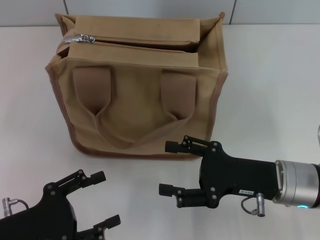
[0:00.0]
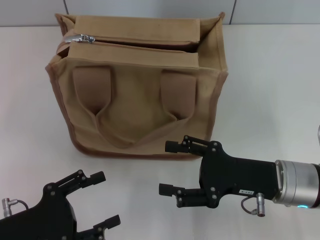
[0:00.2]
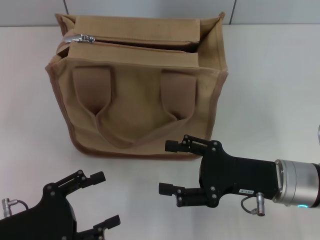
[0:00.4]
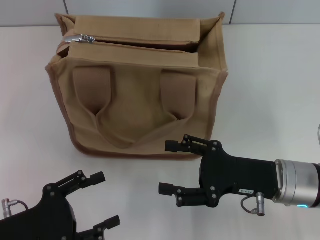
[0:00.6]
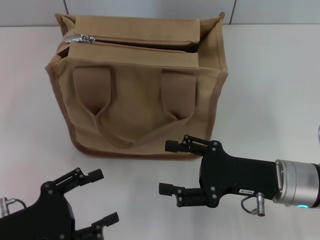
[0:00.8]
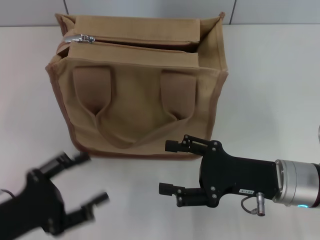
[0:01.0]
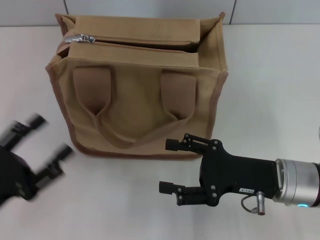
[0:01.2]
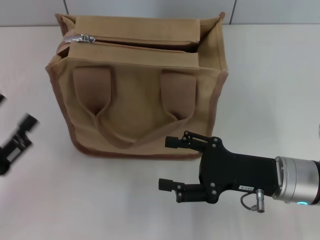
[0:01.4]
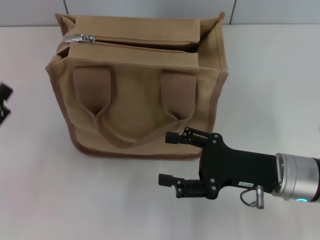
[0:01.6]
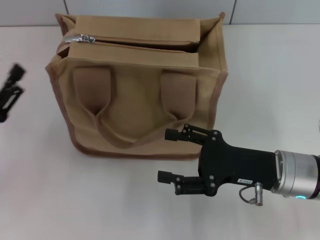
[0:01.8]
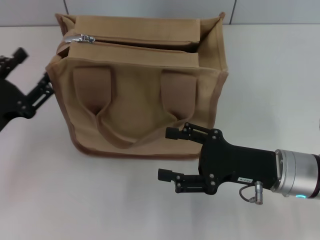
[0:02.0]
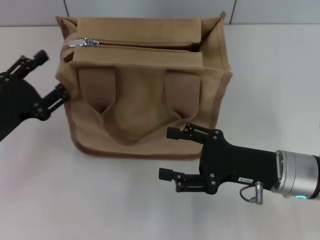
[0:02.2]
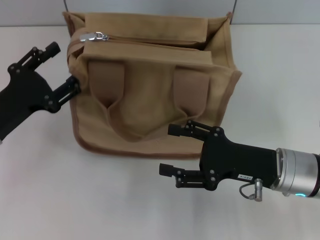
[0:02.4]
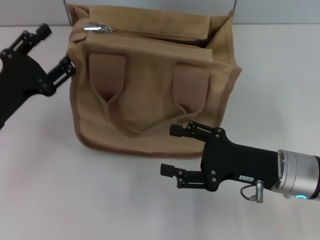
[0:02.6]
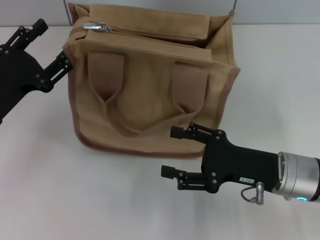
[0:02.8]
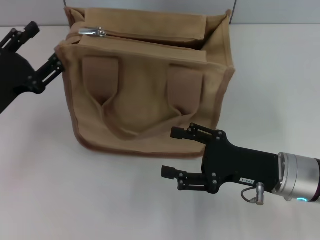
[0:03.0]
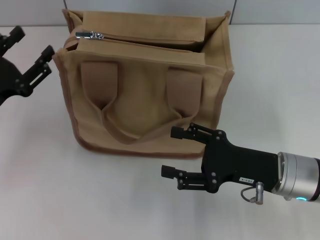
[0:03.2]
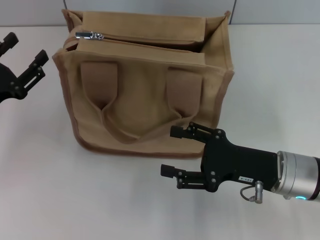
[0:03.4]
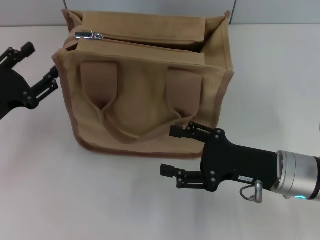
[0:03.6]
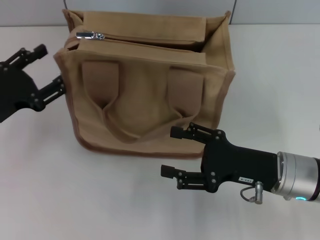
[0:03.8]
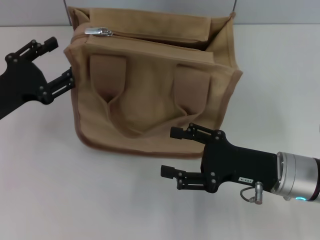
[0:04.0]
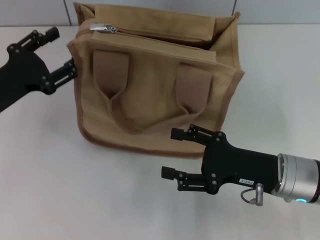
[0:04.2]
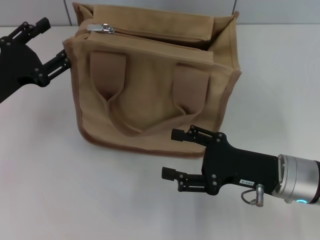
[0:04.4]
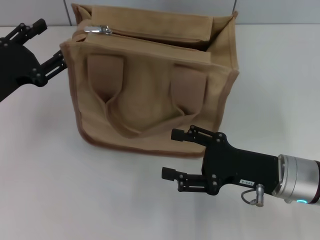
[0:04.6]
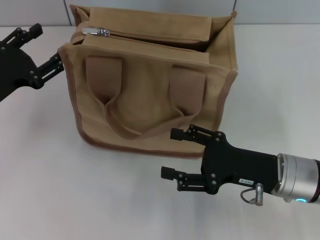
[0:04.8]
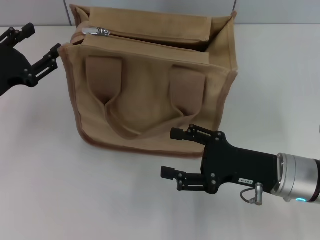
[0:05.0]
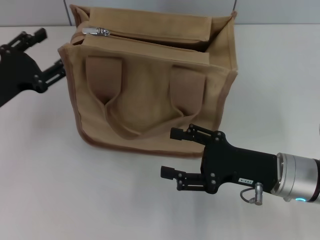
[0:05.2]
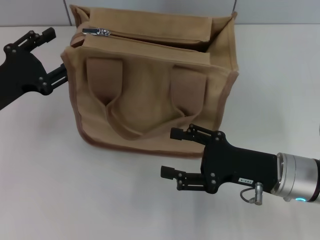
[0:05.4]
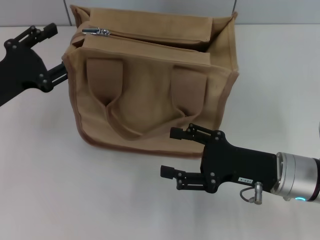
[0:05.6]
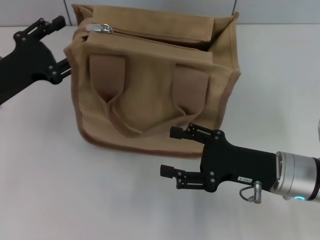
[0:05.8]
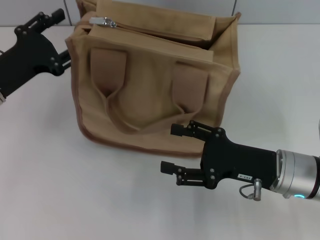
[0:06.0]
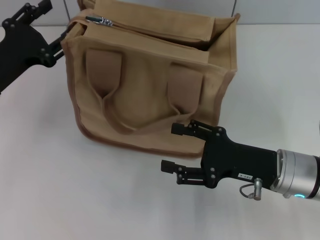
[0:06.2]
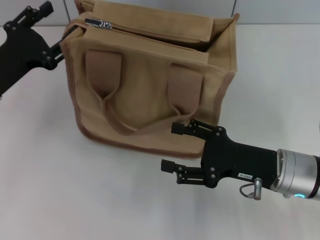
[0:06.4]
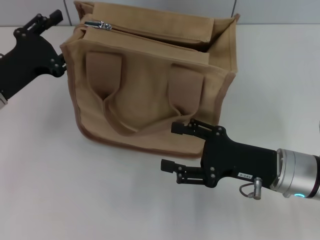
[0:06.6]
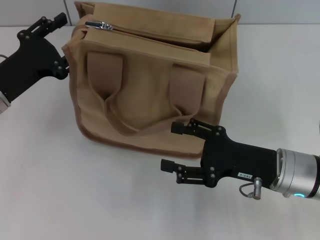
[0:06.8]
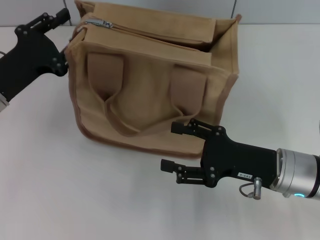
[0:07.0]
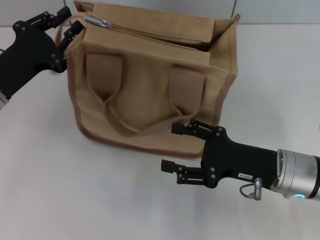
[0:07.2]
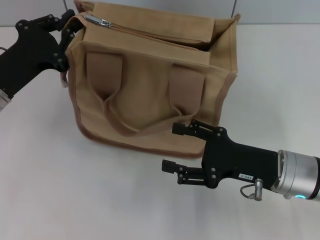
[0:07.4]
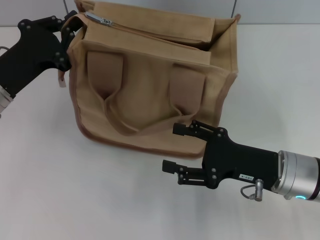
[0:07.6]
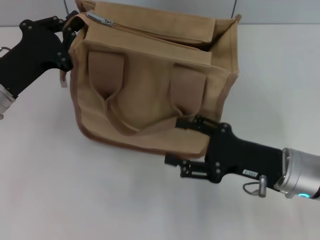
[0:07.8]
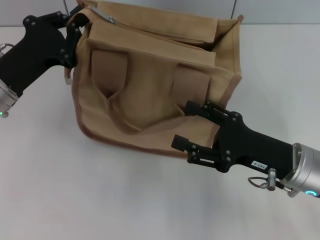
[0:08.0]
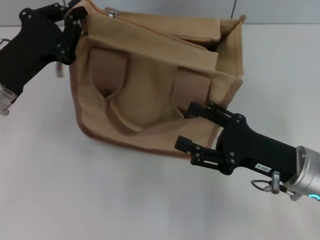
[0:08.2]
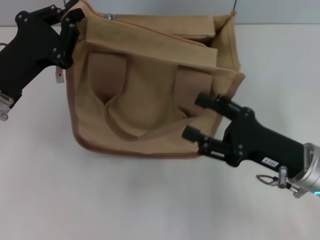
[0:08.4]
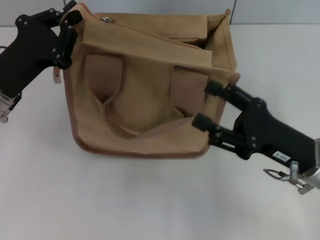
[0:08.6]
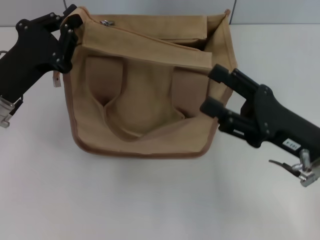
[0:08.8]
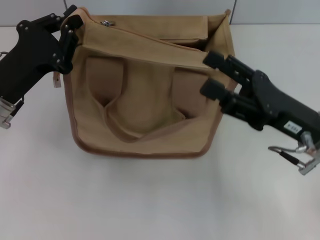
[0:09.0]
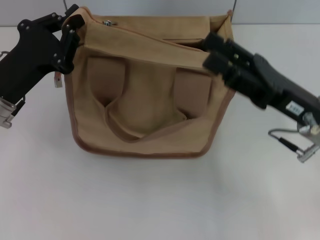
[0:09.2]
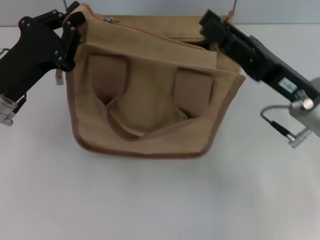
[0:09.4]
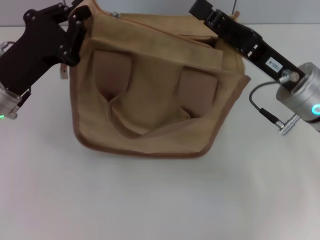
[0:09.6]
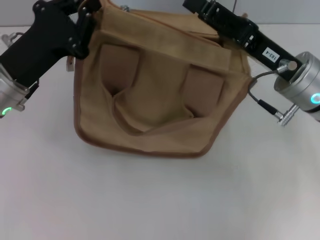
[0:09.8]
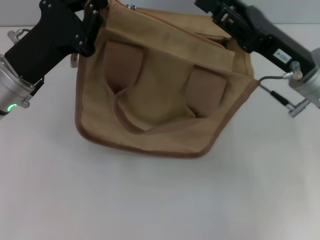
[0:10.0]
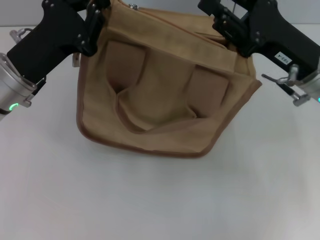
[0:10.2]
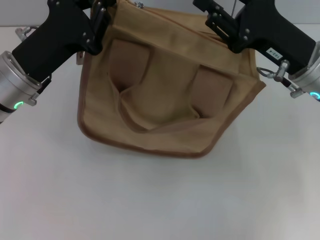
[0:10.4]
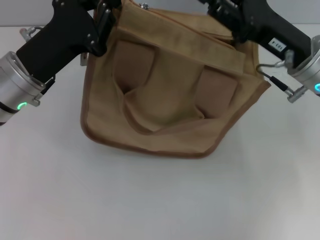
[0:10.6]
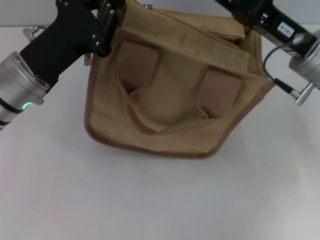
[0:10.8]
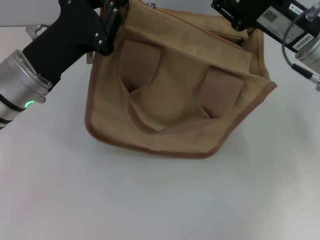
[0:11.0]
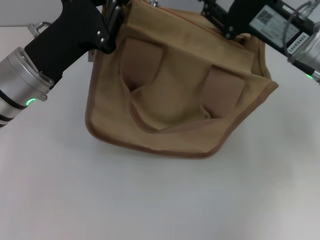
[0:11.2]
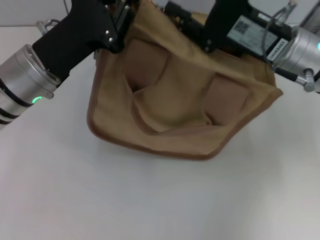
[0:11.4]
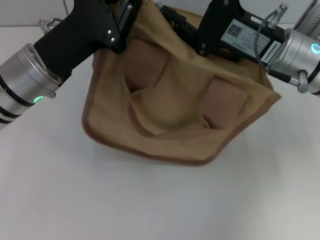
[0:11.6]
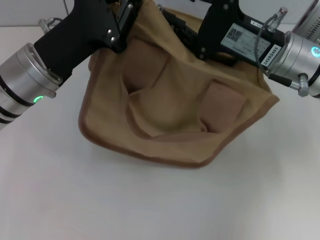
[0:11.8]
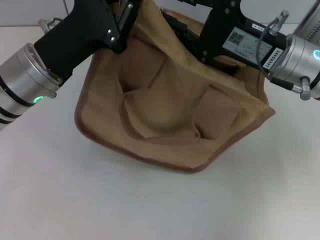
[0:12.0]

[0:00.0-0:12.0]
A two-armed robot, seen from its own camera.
0:00.0 to 0:01.6: The left gripper changes place by roughly 5 cm.
0:01.6 to 0:03.0: The left gripper moves forward, about 10 cm.
0:03.0 to 0:06.0: The grippers make only small movements.
0:06.0 to 0:07.6: The left gripper closes its fingers.
0:07.6 to 0:09.0: The right gripper heads upward, covering approximately 5 cm.
0:09.0 to 0:10.4: The right gripper moves forward, some 5 cm, and closes its fingers.

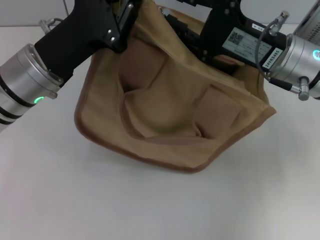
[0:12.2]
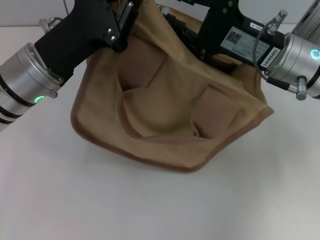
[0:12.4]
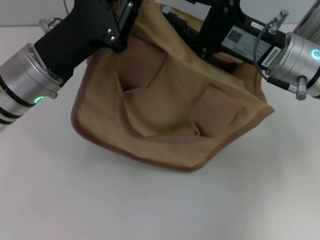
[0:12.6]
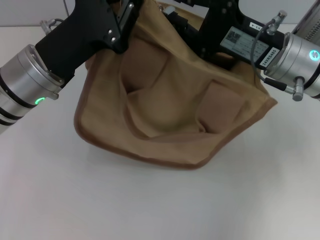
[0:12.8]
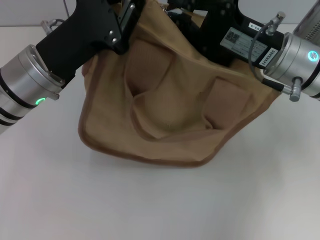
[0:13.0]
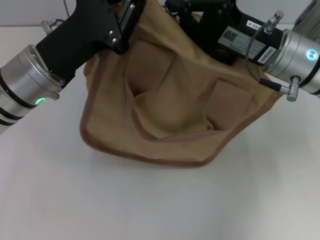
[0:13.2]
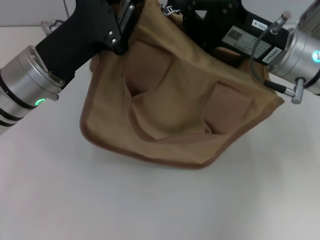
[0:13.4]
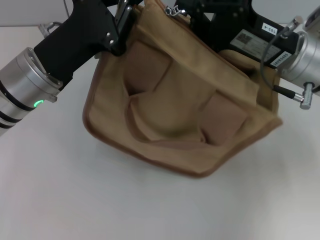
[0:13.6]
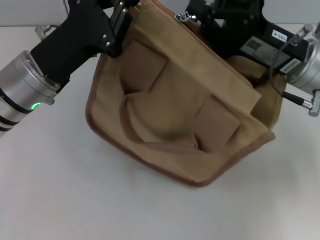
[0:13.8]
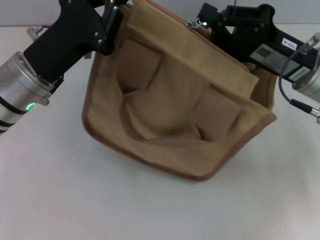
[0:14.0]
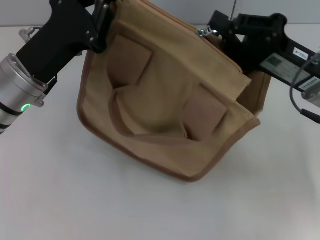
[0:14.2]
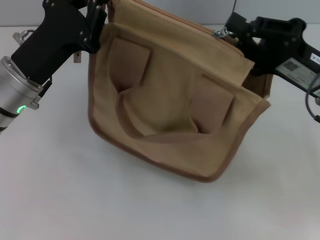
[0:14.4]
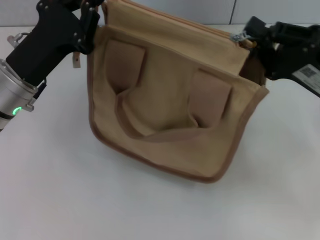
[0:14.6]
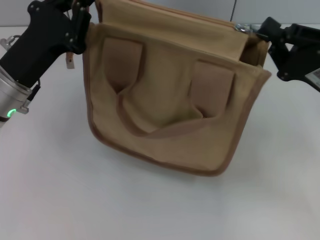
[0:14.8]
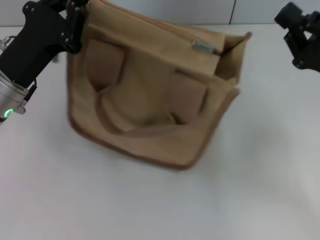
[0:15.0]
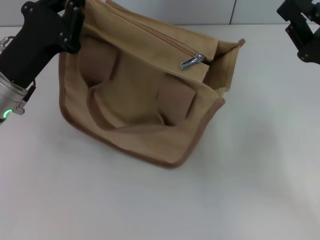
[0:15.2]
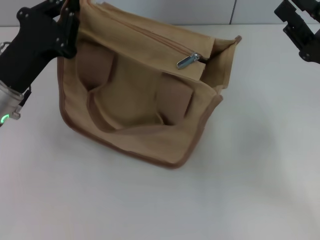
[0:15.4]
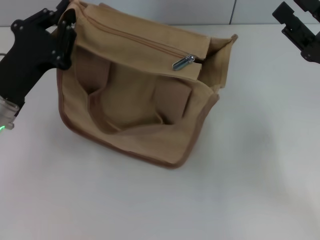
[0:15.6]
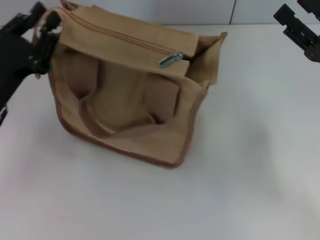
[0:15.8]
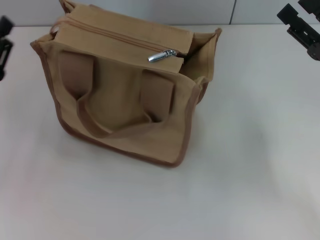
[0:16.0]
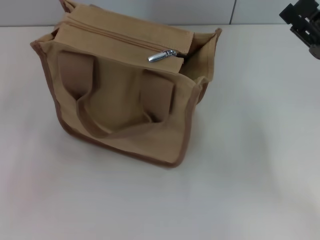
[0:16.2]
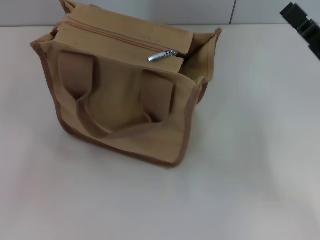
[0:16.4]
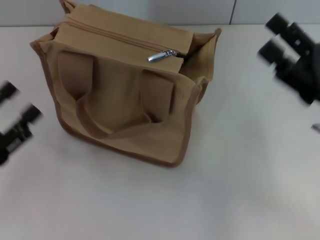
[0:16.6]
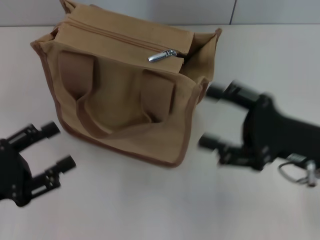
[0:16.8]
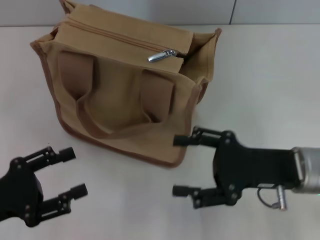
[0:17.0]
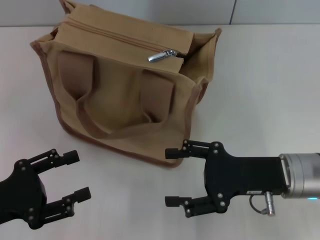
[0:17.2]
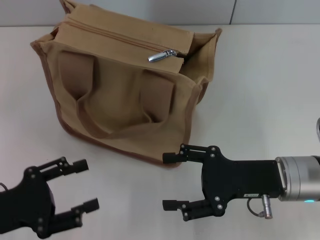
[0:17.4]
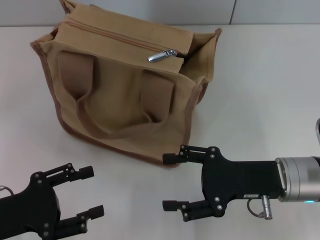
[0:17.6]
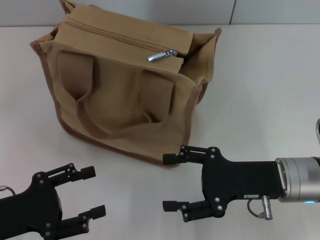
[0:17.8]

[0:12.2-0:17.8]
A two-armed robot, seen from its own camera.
Step, 0:12.2 to 0:15.0: Pull up the zipper with your right hand.
Step, 0:15.2 to 0:16.0: Grab the zipper with your left hand.
0:12.2 to 0:13.6: The right gripper closes its fingers.
0:13.6 to 0:15.0: The right gripper shifts approximately 10 cm to the right and backward.
0:15.0 to 0:16.4: The left gripper is displaced backward and to the left by about 15 cm, and opens, while the right gripper opens.
0:16.4 to 0:17.8: The right gripper shifts some 10 cm to the left and downward.

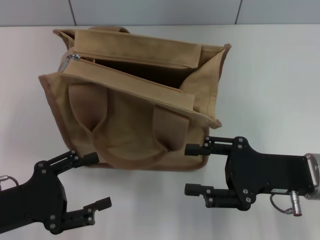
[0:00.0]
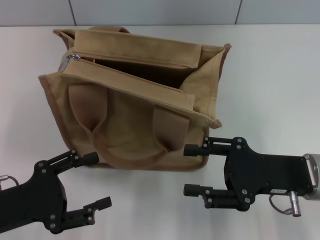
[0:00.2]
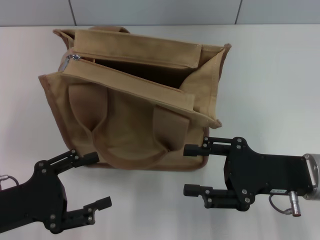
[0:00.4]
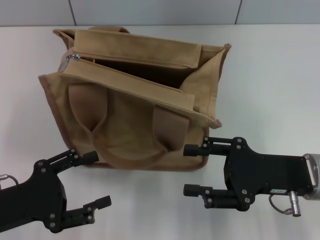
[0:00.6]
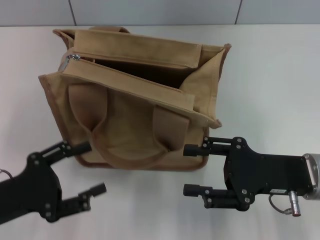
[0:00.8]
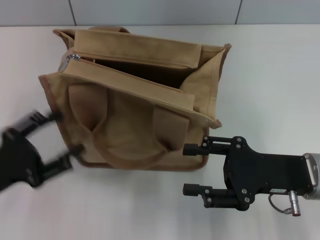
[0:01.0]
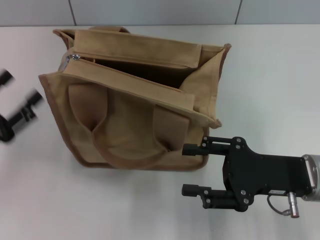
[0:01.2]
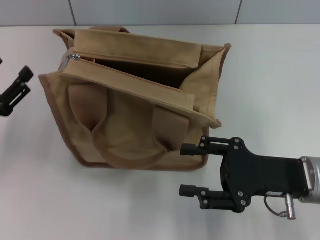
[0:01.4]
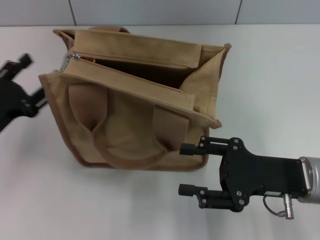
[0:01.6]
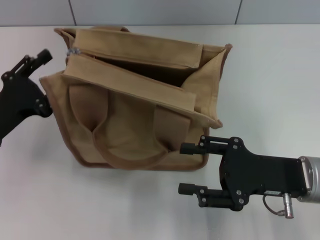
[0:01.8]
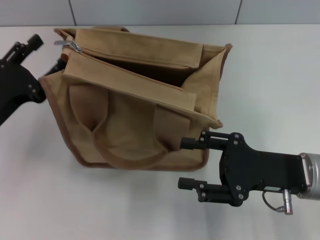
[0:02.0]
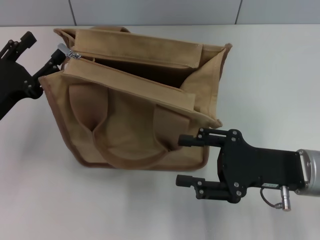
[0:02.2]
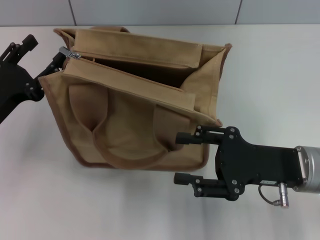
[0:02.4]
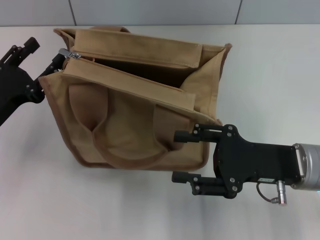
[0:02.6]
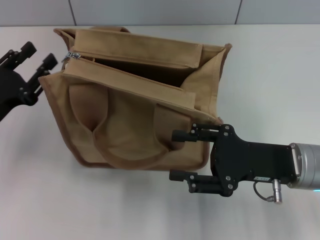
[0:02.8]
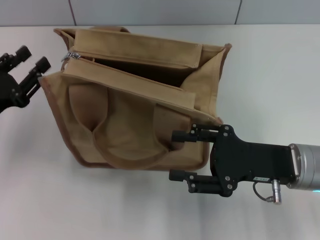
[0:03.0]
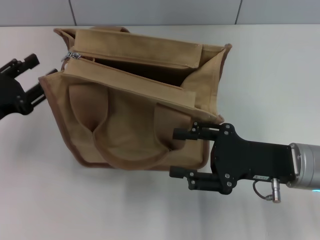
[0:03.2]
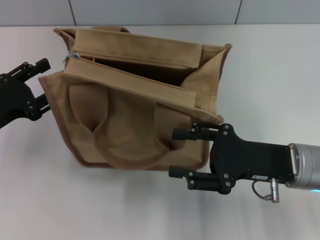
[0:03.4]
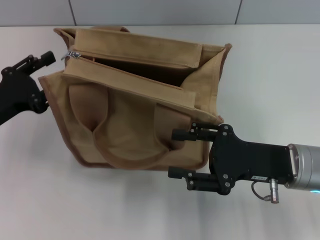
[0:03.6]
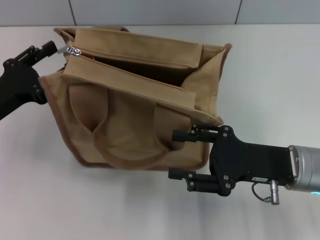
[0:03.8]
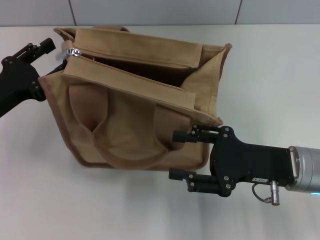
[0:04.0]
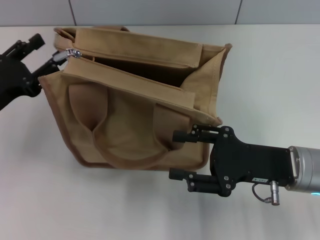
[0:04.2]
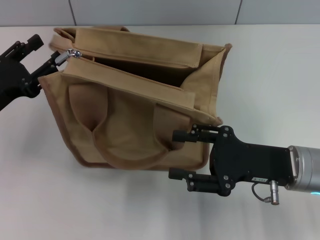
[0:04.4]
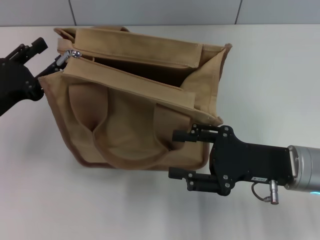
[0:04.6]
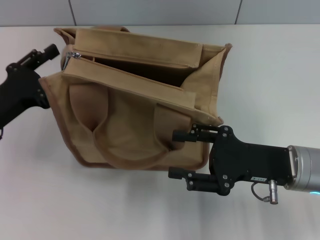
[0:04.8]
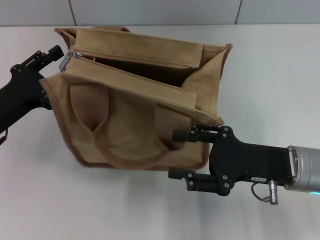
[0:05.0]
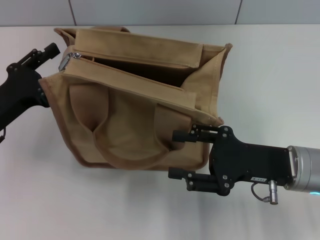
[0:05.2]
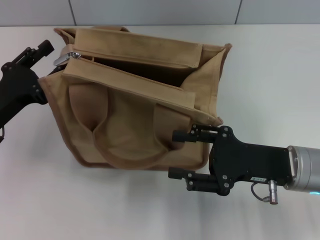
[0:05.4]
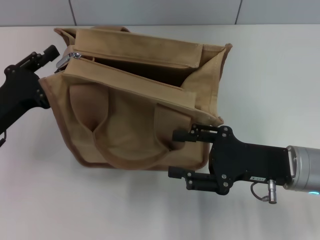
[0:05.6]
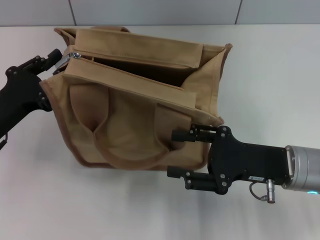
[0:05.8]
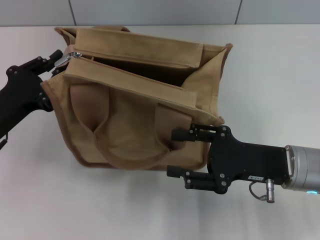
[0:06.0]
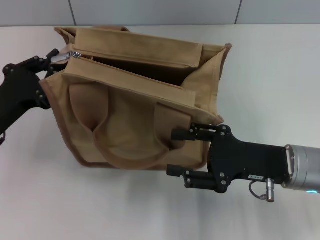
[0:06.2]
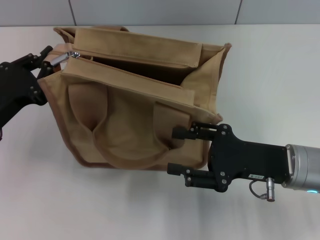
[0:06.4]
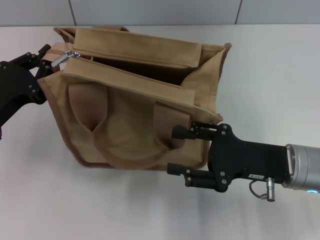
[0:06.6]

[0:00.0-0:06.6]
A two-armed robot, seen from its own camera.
0:00.0 to 0:01.6: The left gripper heads forward, covering about 5 cm.
0:01.6 to 0:05.0: The grippers move only a little.
0:05.0 to 0:06.6: The left gripper closes up.
